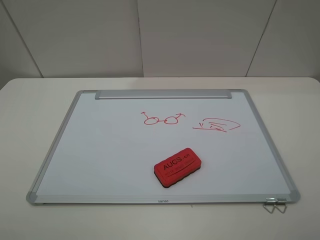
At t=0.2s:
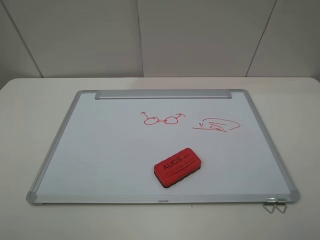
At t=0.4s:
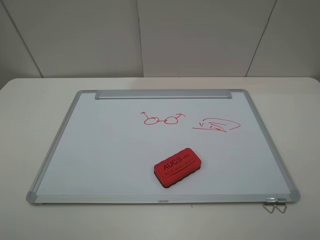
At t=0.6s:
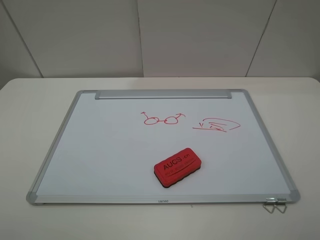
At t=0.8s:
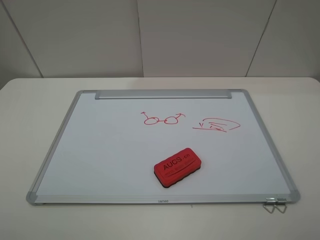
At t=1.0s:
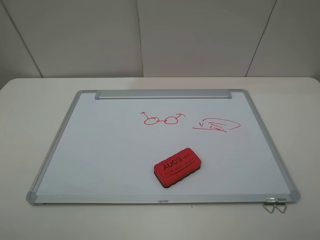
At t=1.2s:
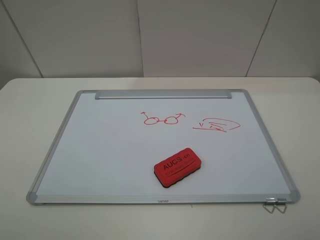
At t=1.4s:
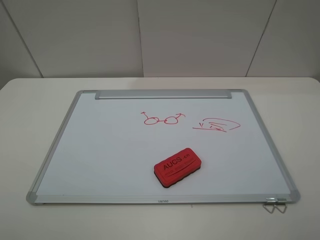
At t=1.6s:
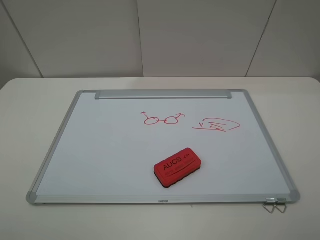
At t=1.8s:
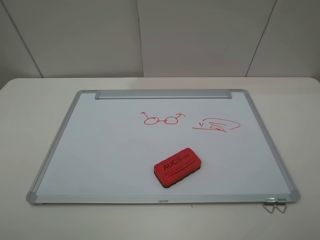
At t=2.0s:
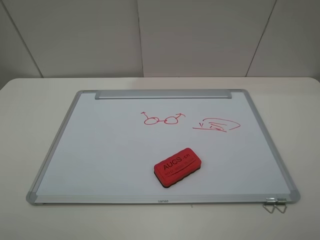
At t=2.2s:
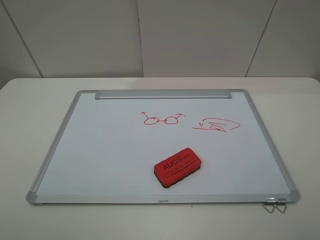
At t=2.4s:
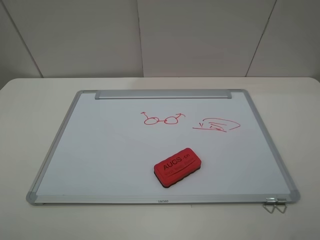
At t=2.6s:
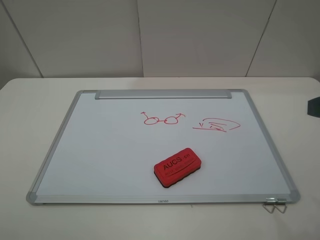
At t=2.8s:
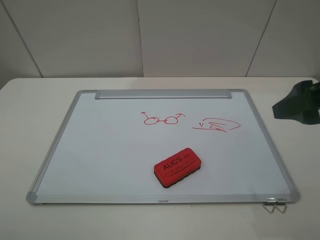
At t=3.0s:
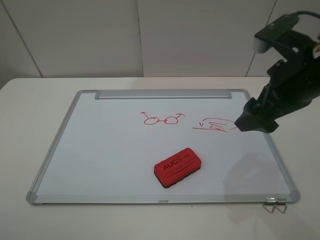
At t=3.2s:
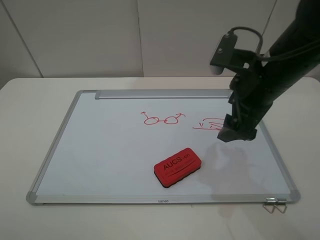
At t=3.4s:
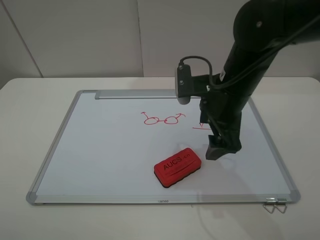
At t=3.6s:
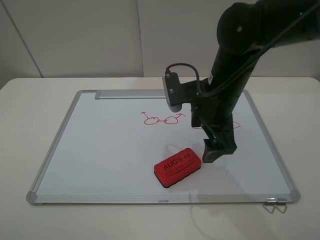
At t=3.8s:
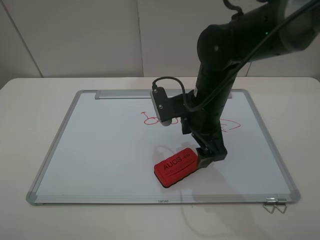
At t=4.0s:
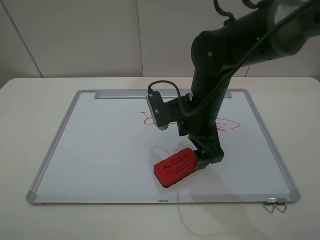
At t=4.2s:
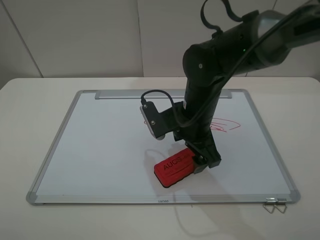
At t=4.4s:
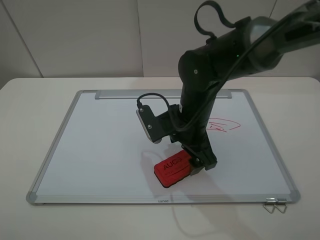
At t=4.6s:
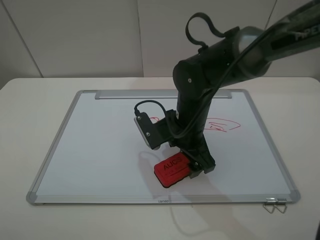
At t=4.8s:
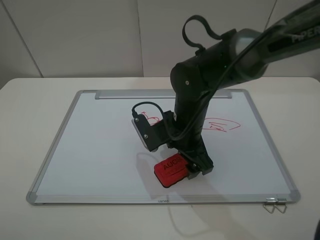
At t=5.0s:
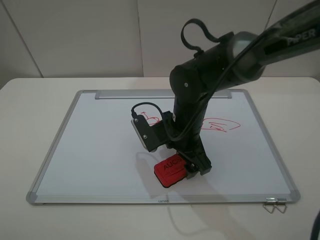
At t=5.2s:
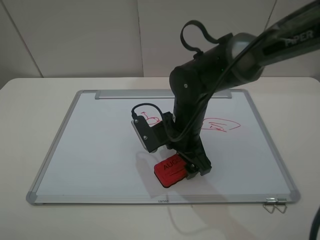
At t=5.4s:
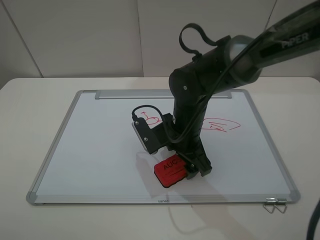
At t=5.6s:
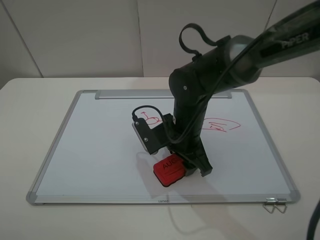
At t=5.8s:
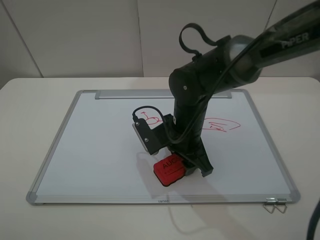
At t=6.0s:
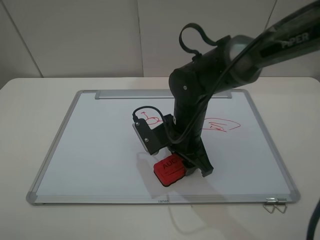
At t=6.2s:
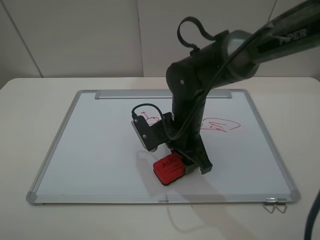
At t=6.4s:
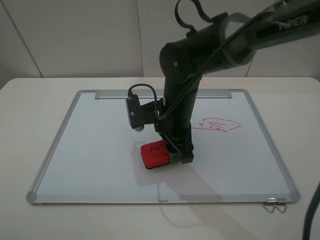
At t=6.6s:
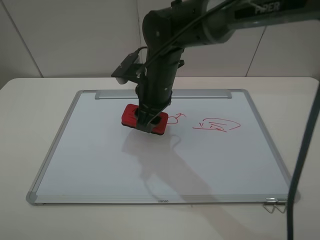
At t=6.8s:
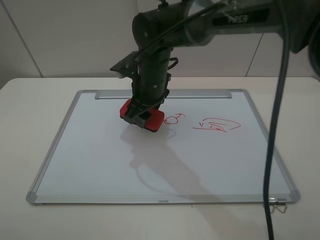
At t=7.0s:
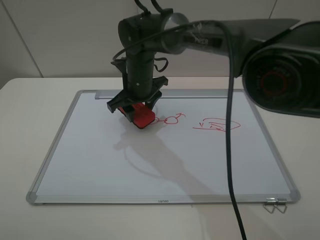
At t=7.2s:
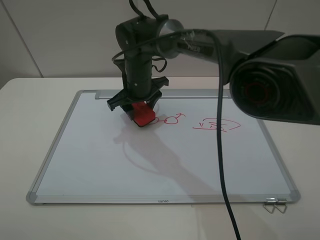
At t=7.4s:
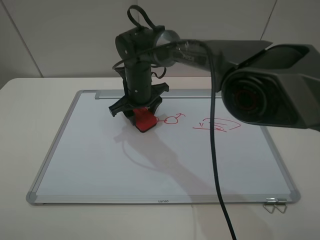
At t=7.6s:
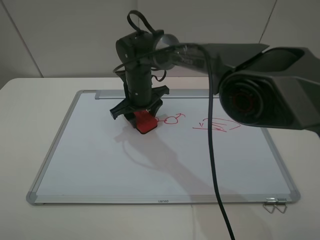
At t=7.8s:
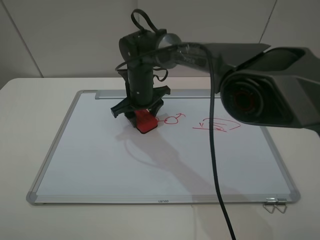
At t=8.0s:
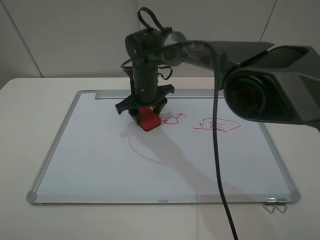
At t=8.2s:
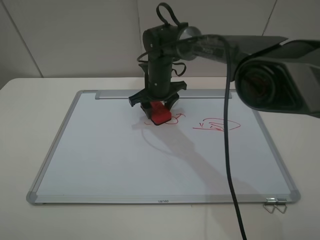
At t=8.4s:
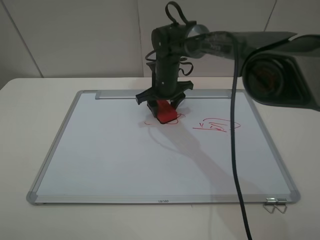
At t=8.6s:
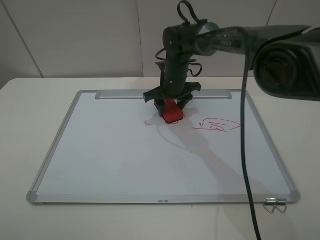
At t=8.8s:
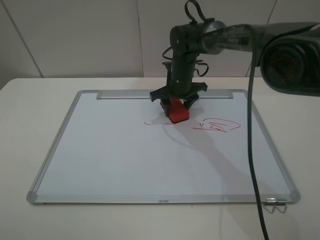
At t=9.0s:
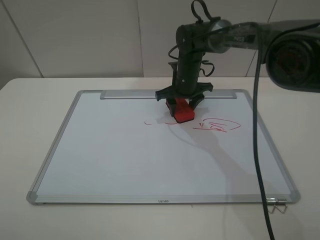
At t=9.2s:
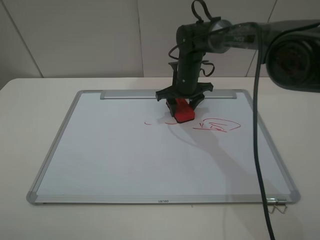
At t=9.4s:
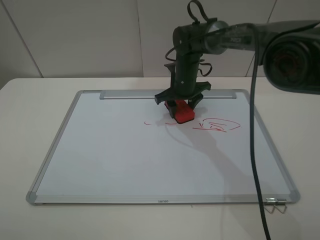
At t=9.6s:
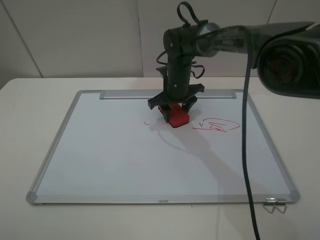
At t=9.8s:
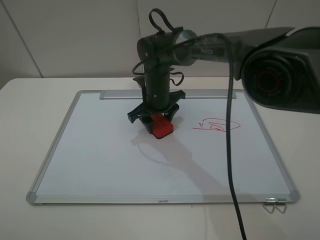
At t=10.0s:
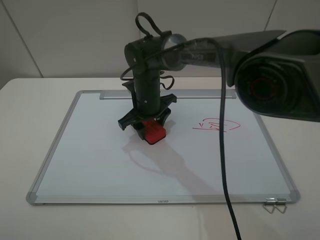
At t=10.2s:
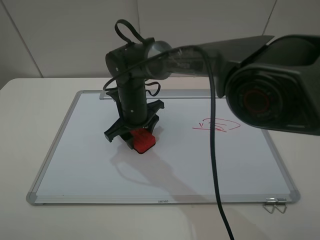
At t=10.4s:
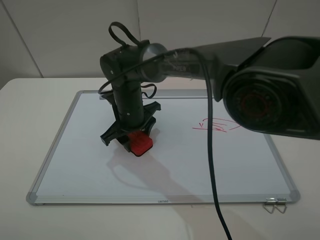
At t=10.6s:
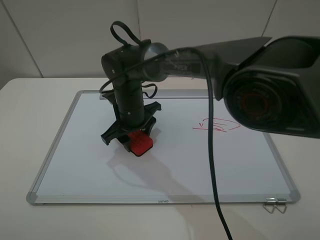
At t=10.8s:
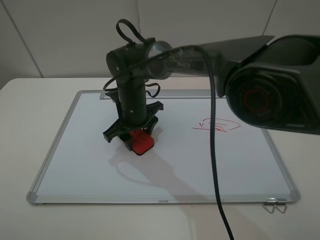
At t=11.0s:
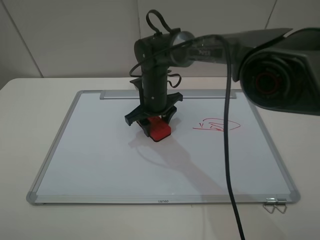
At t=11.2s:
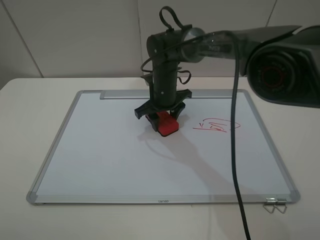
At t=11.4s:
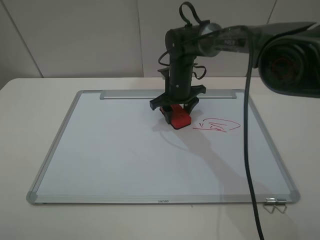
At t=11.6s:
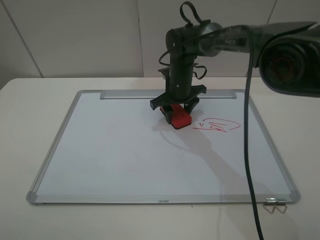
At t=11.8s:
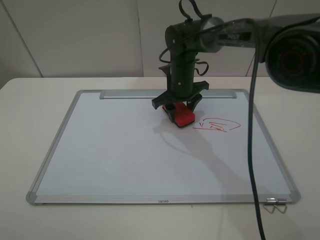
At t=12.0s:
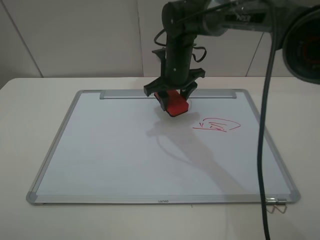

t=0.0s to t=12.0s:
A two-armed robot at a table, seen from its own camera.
Step, t=0.0s to t=5.6s: Grasp the eraser with the right gripper.
Step, t=5.8s to t=12.0s: Grasp the eraser and wipe the blackboard with the right gripper.
t=0.0s to t=1.6s: Both grippers stay about where they are.
t=1.6s to t=3.0s: The right gripper moves forward, about 25 cm.
t=3.0s to t=4.4s: The right gripper is displaced to the left and downward by approximately 20 cm.
t=4.4s to t=6.0s: The right gripper closes up.
t=6.0s to t=7.6s: The right gripper moves forward and to the left, roughly 15 cm.
t=7.6s to t=9.0s: The right gripper heads to the right, covering roughly 10 cm.
t=9.0s to t=10.4s: The right gripper shifts about 20 cm to the left and backward.
t=10.4s to t=12.0s: The right gripper shifts some 15 cm to the right, upward and forward.

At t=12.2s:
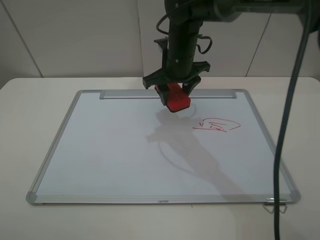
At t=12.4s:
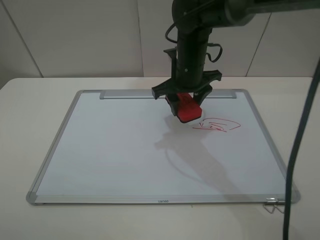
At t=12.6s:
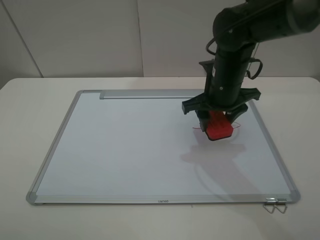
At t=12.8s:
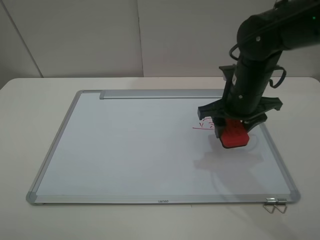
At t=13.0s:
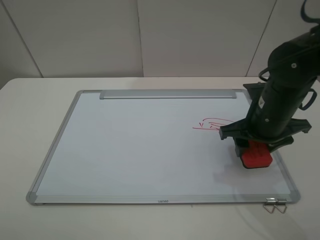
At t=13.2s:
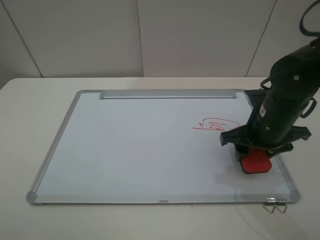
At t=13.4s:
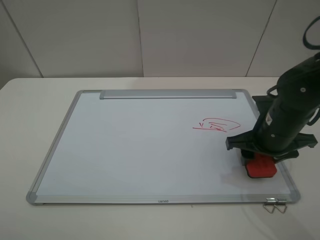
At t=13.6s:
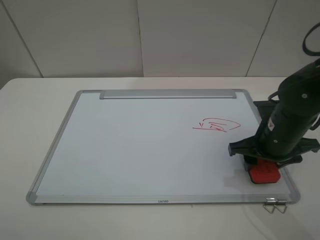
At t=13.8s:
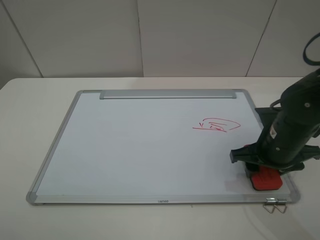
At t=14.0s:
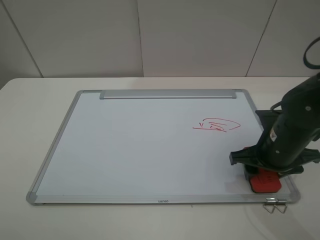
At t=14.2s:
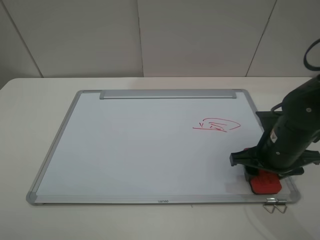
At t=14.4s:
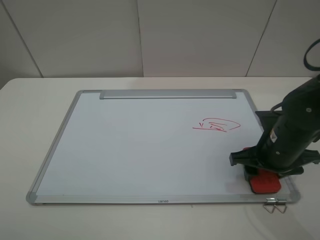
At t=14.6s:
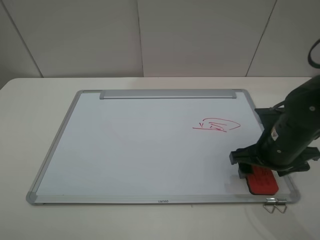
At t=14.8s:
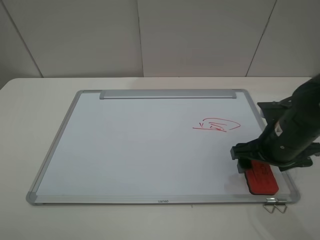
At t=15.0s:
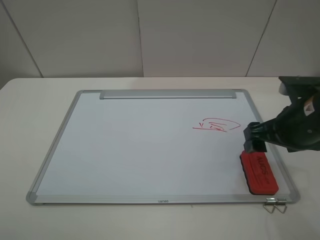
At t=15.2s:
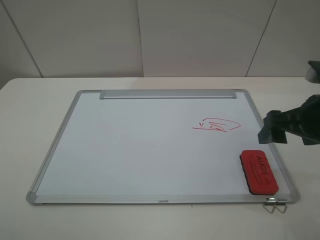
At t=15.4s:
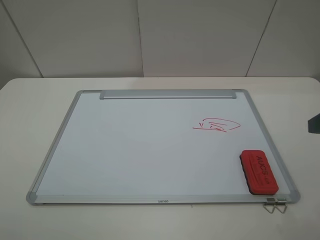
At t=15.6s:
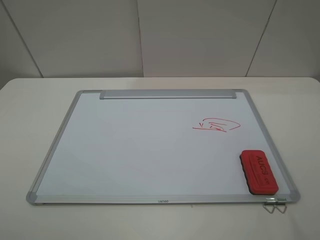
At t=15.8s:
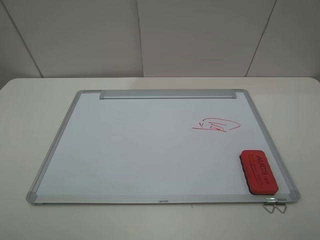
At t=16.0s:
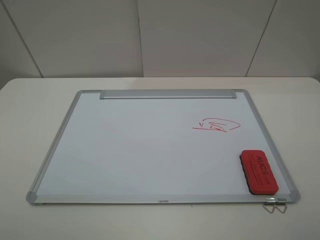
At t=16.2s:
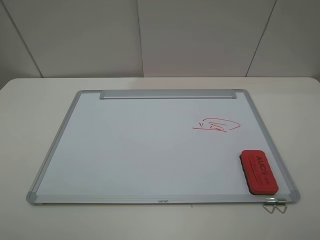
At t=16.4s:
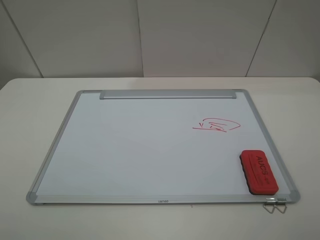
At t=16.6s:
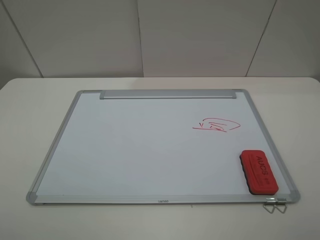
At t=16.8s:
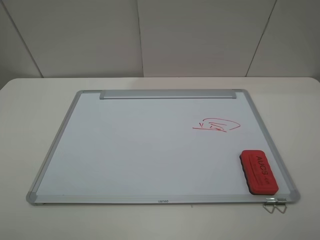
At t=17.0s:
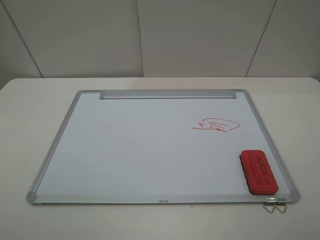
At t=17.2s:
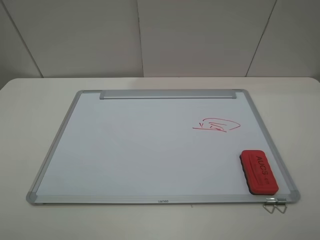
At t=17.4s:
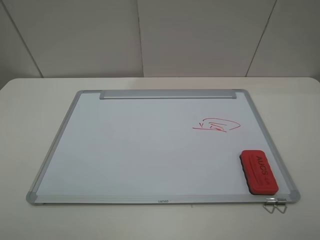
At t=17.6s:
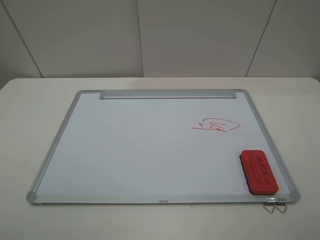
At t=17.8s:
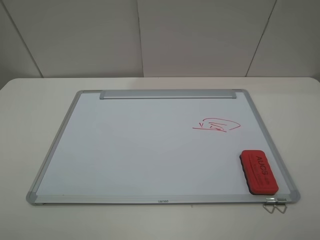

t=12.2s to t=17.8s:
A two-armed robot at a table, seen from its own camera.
Step, t=12.2s to t=14.8s: Place the eraser with the right gripper.
t=12.2s to t=13.6s: The right gripper travels to the right and backward by roughly 25 cm.
t=13.6s to t=15.0s: The right gripper travels upward by some 5 cm, and opens.
t=15.0s to t=16.4s: The right gripper shifts approximately 20 cm backward and upward.
t=16.4s to t=17.8s: Both grippers stay put.
